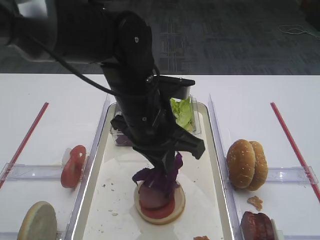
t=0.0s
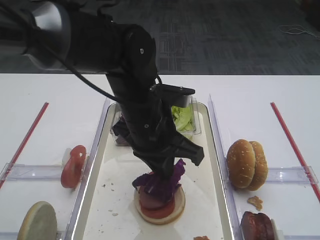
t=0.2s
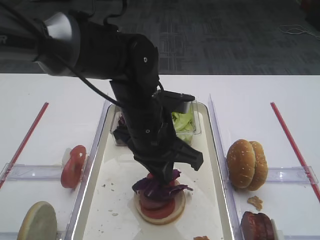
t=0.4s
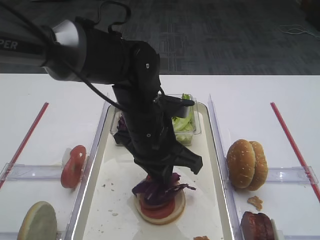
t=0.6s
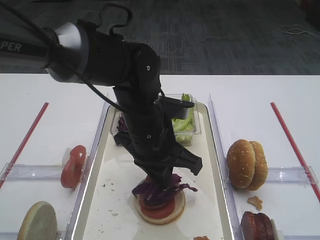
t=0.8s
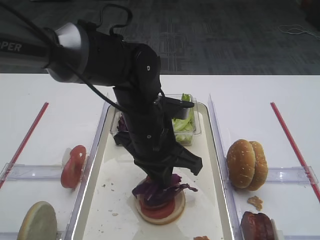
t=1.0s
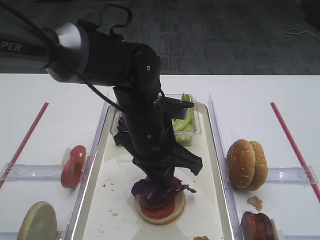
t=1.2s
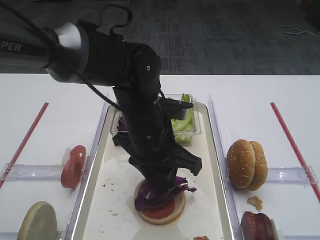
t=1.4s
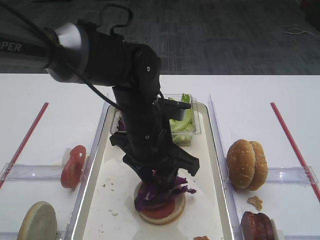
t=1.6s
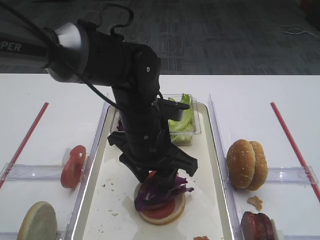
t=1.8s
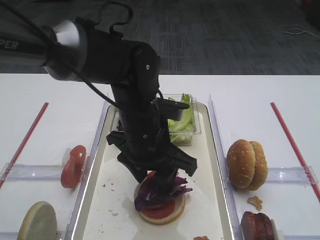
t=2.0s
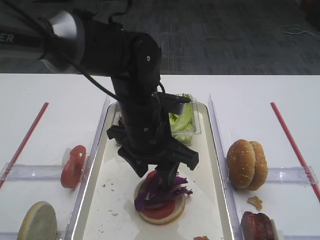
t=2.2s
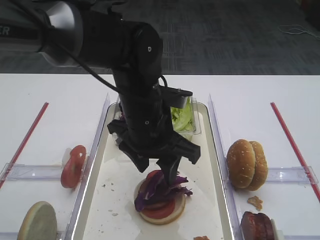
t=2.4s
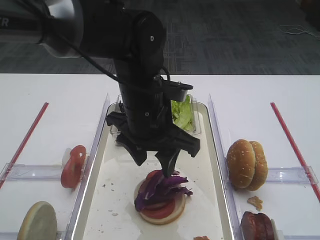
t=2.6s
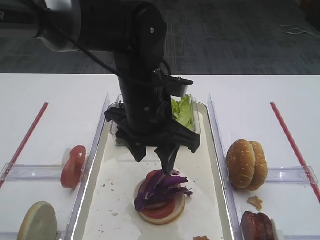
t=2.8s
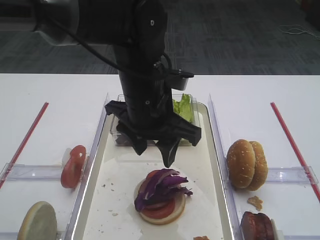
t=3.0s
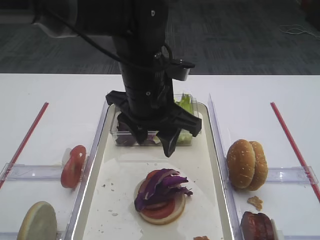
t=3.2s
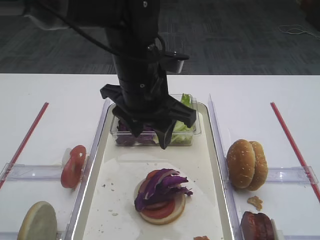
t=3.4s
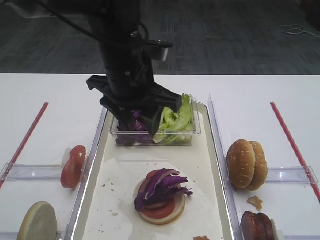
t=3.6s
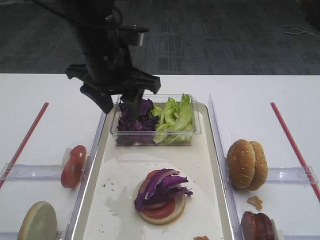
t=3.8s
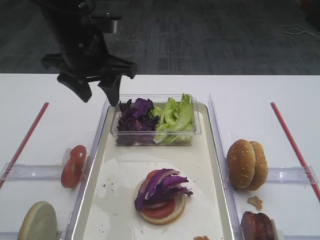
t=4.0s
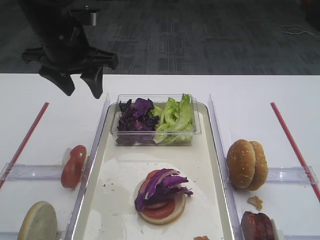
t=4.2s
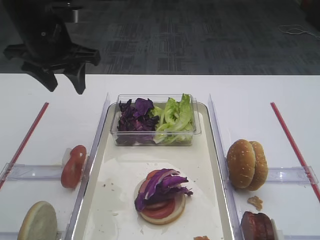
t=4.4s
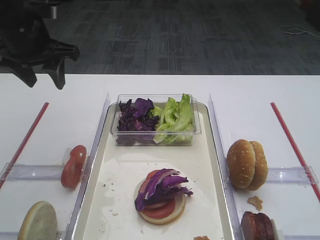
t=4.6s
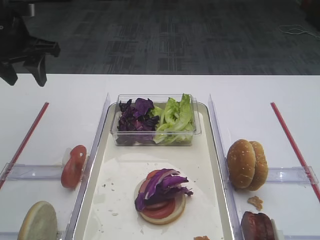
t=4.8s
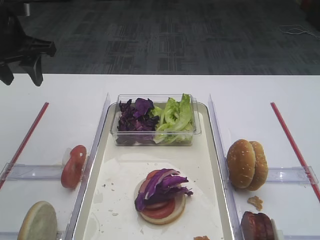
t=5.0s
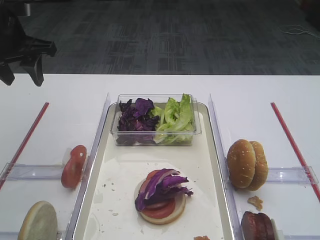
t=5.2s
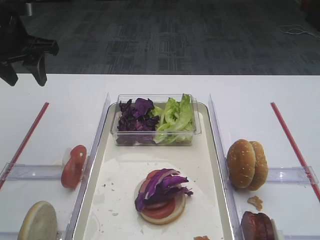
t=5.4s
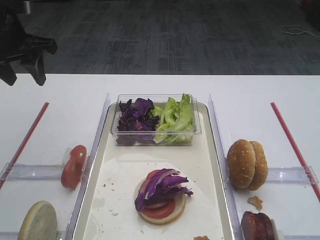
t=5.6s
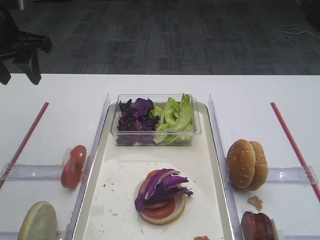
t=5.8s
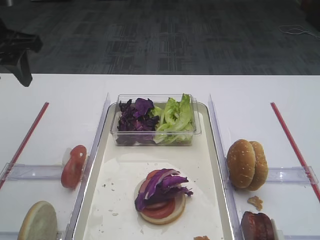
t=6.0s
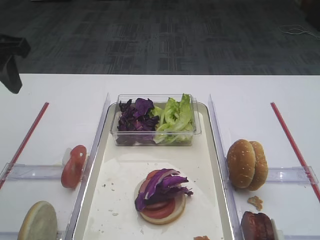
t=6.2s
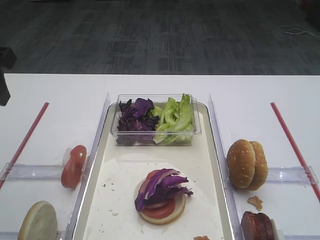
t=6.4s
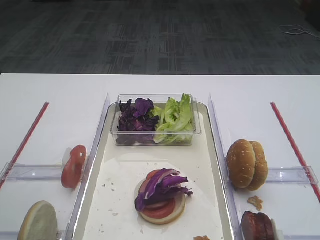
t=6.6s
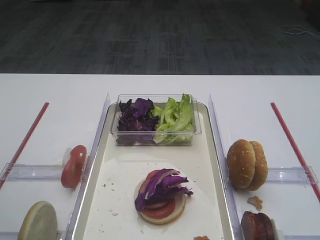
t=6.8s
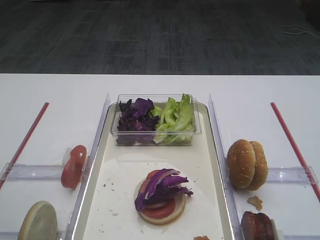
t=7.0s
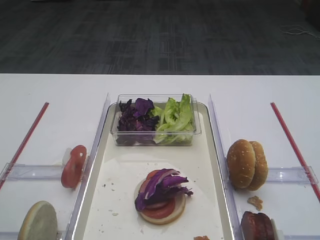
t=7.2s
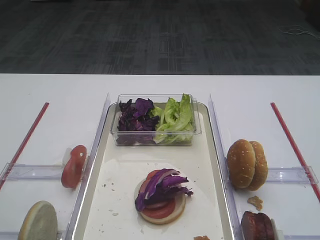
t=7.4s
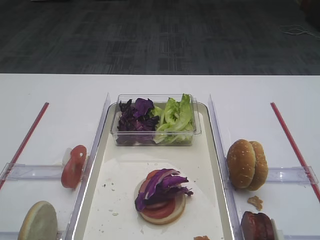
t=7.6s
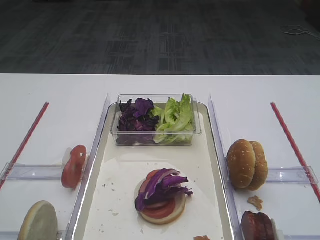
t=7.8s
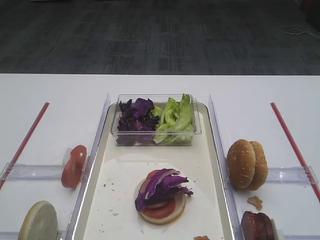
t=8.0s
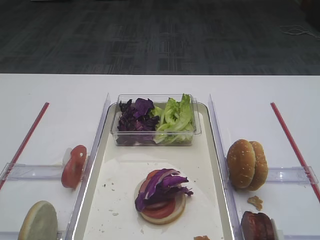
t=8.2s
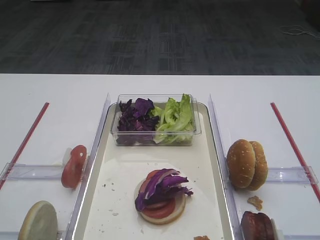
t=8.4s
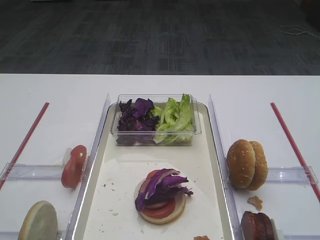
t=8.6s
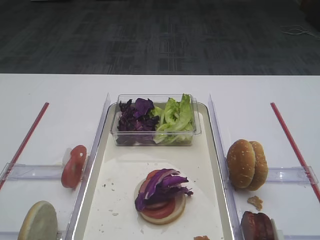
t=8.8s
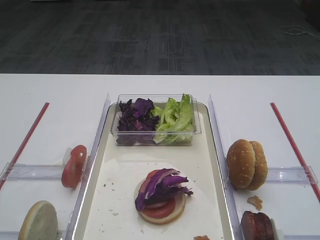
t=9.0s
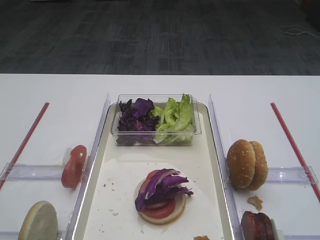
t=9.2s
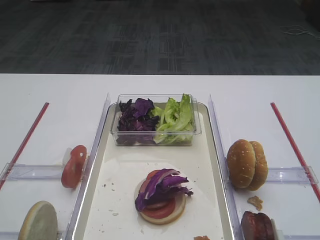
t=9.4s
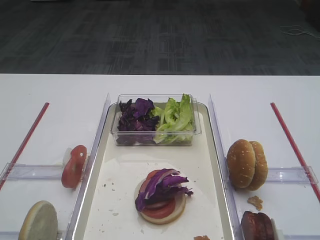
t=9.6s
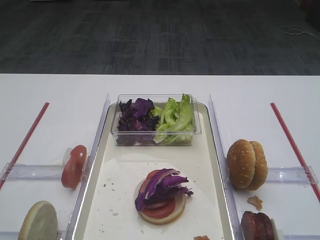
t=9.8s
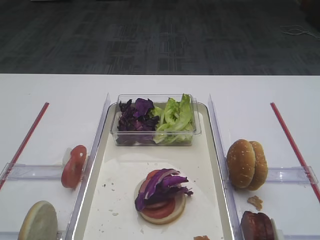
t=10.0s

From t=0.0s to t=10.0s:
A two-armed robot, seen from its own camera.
Step, from t=0.0s to t=2.8s: Place the purple cabbage on the cutlet with the left gripper.
From t=0.0s to t=1.4s: The left gripper opens up.
From t=1.4s to t=2.8s: The left gripper opens up.
From t=2.8s to t=4.2s: The left gripper heads to the left, forward and upward, covering some 15 cm.
From t=4.2s to t=5.8s: The left gripper shifts about 10 cm to the left. Meanwhile the right gripper closes its fingers.
From t=5.8s to t=7.2s: The left gripper travels backward by about 20 cm.

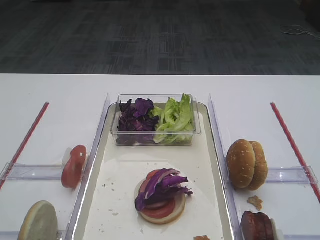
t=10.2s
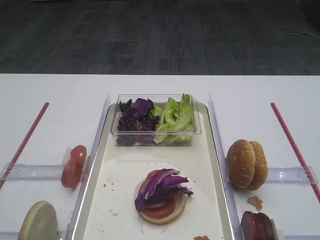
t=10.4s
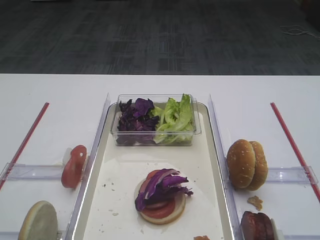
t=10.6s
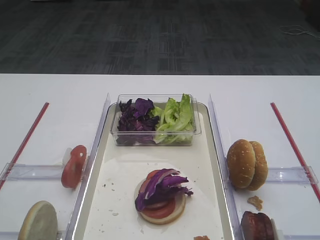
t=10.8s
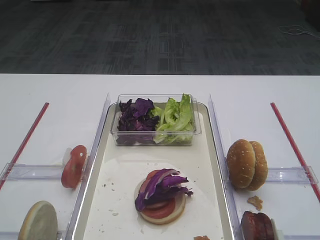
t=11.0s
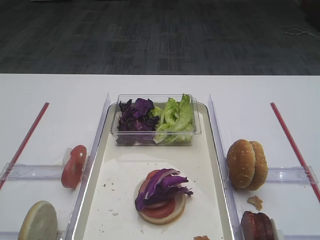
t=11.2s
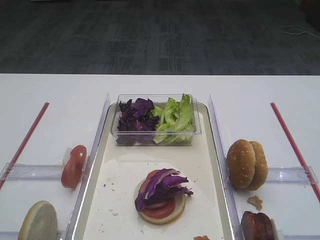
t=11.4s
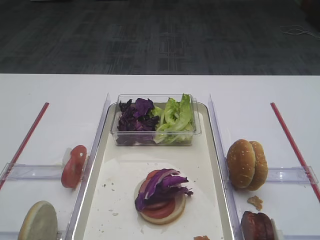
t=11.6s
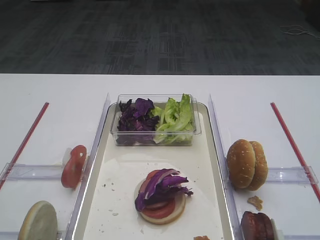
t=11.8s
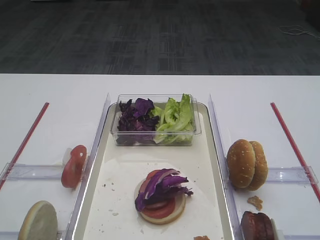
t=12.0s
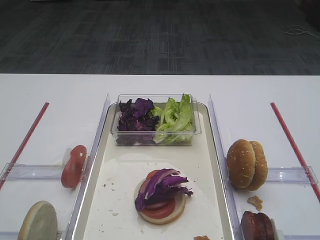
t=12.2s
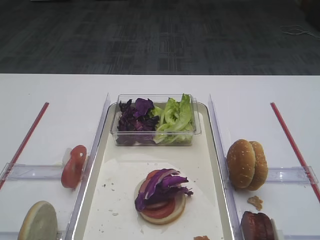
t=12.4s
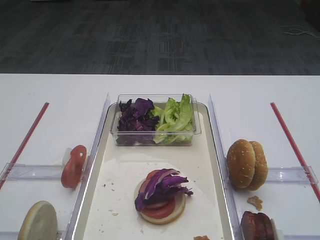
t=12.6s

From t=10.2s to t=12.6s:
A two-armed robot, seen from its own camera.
From t=10.2s to t=11.4s: The two grippers keep their place.

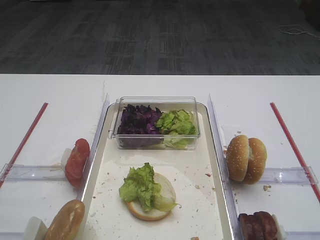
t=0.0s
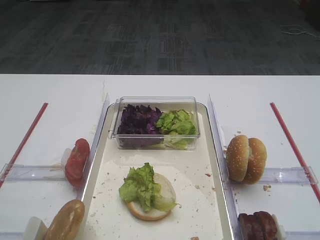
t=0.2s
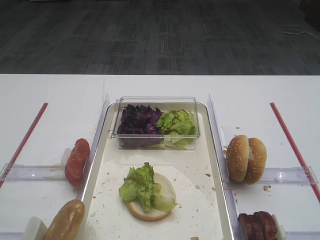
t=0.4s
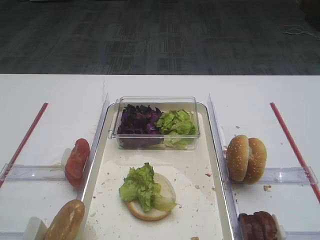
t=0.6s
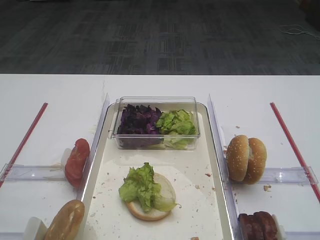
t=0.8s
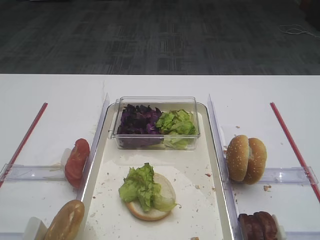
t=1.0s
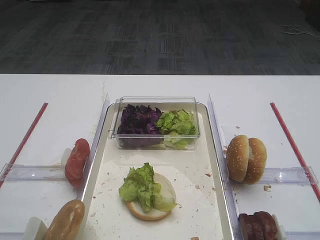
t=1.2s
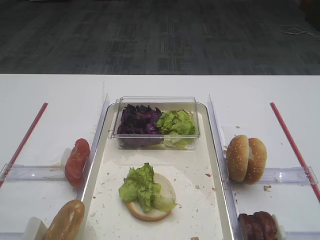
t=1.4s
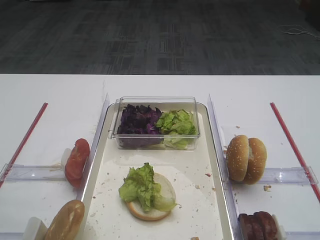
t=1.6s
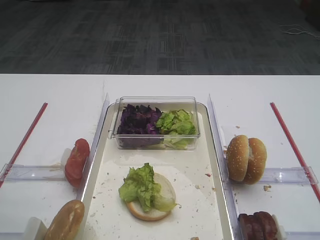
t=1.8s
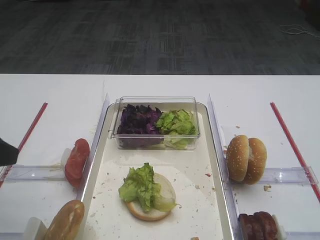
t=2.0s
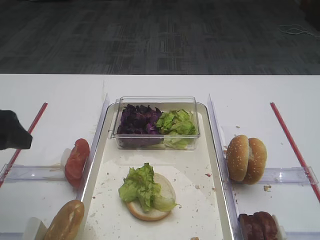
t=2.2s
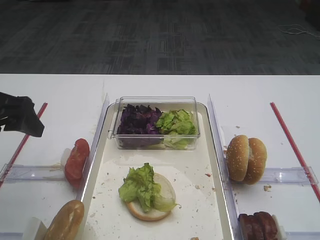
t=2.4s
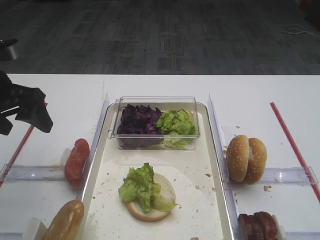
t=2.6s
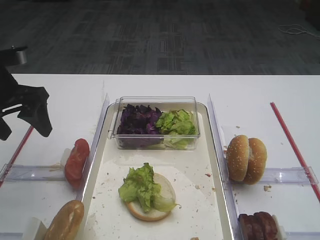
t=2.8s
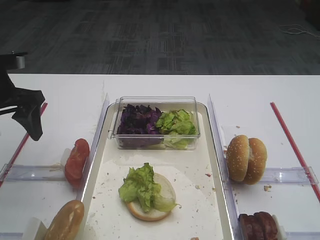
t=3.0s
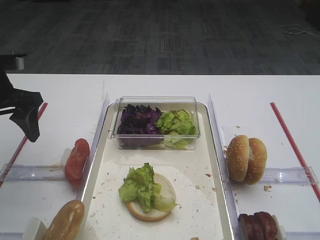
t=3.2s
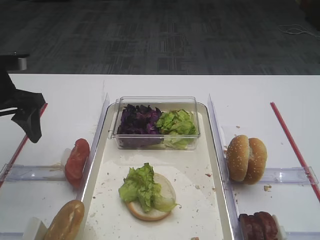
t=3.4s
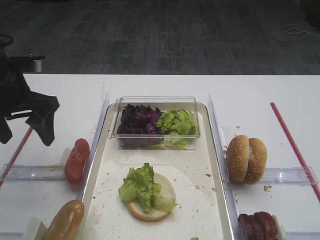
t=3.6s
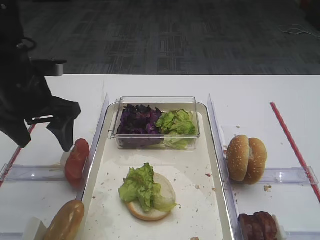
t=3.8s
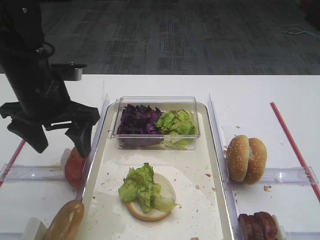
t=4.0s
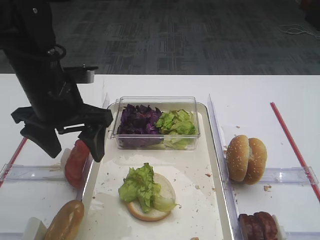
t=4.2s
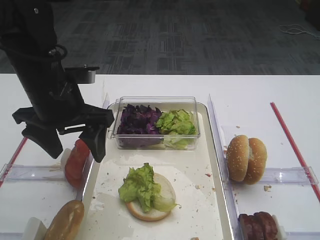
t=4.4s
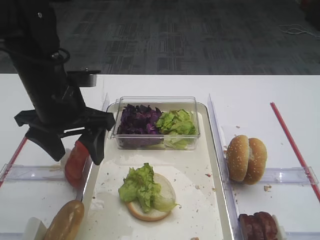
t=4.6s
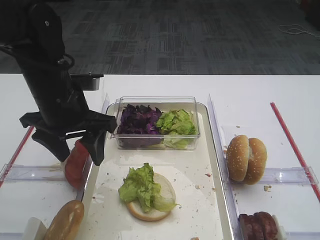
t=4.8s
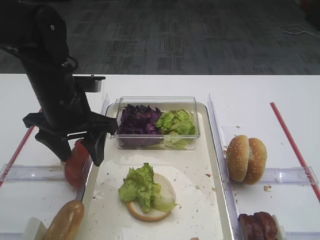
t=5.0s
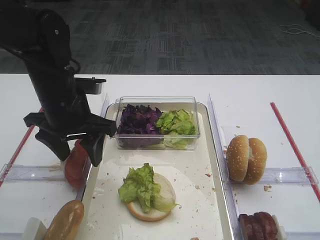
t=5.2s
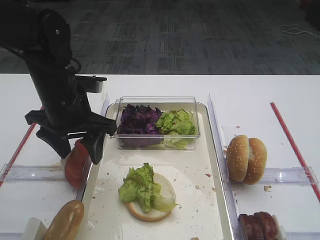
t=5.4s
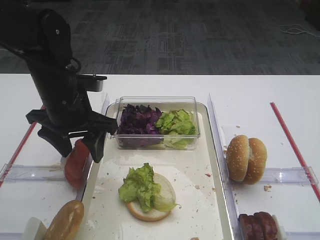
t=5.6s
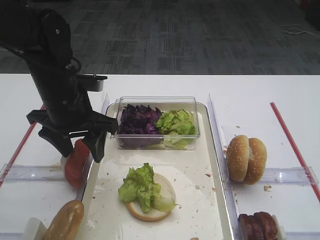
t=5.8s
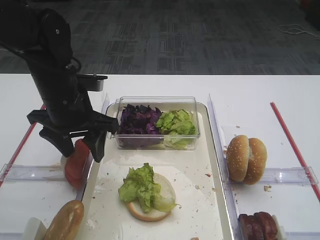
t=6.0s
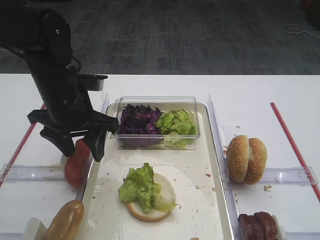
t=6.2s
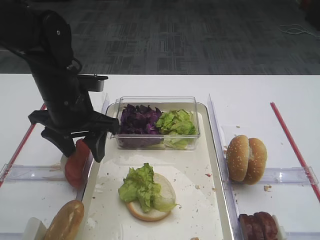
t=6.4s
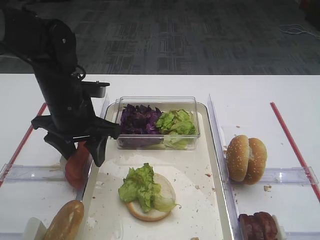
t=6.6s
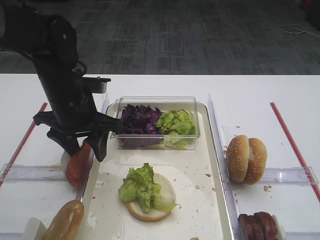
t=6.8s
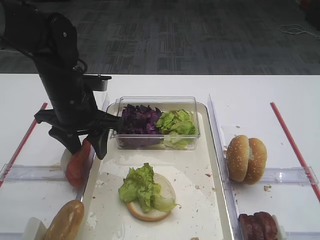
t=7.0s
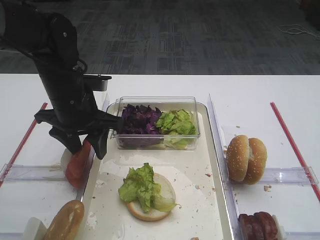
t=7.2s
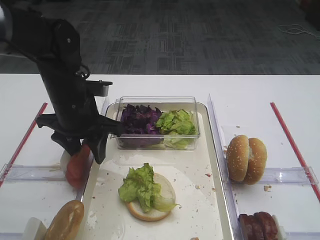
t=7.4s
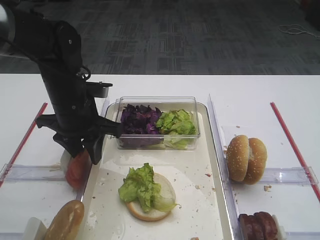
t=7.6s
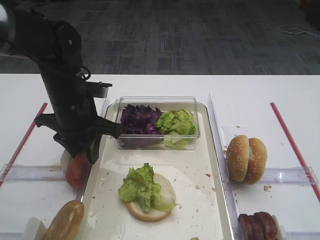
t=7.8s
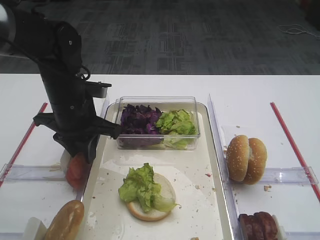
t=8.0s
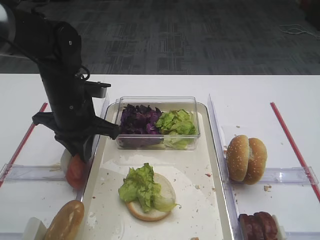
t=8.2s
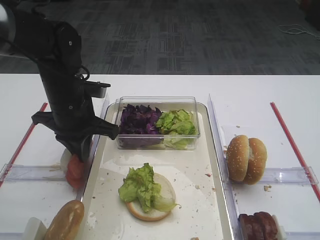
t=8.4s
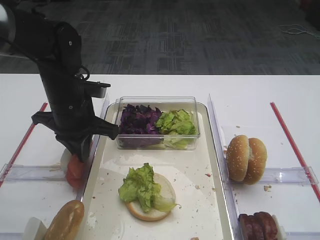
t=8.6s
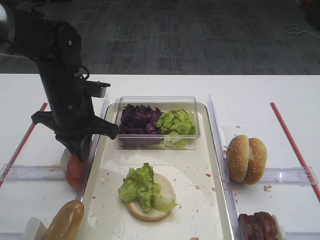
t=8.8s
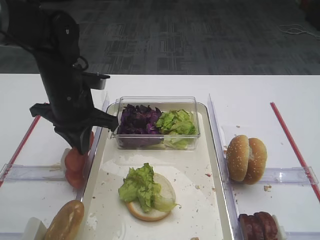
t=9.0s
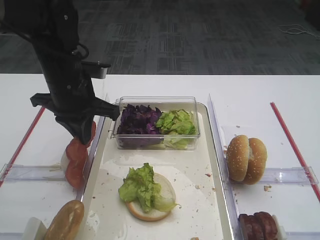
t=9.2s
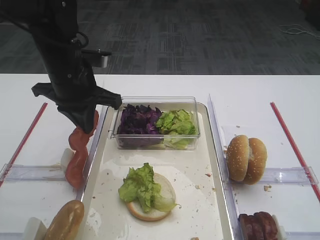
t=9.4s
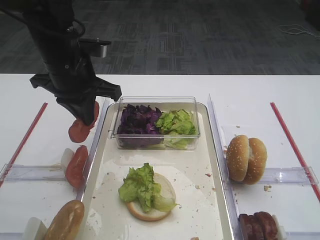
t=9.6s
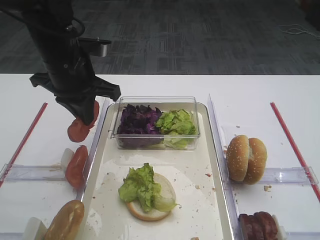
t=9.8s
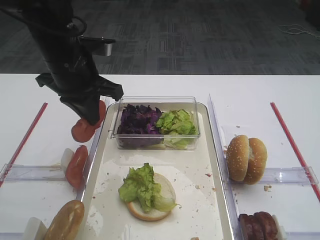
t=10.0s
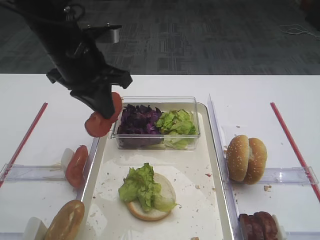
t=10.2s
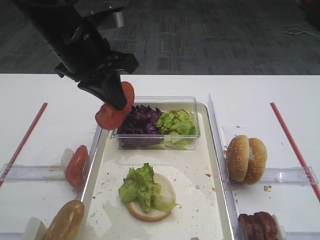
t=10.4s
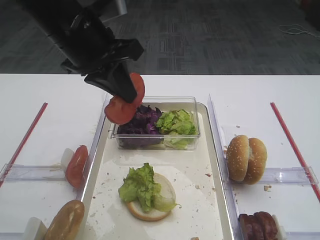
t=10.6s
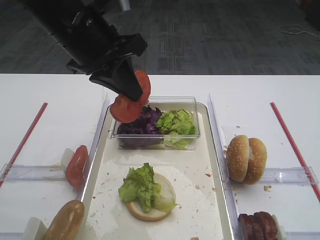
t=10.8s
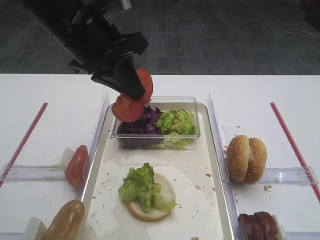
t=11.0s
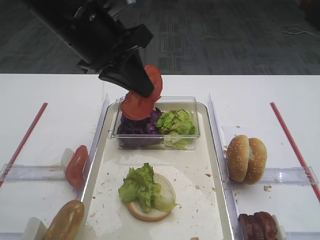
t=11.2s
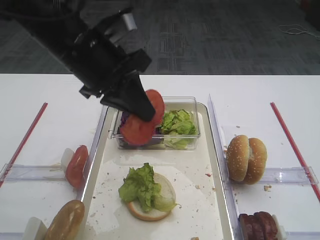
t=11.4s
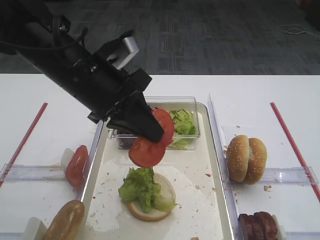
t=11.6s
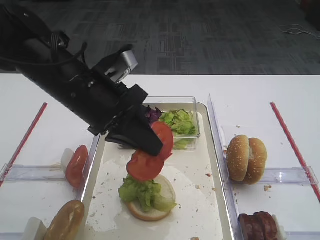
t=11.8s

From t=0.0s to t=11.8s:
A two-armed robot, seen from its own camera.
Step, from t=0.0s to t=9.2s: Pick up the tomato slice with the left gripper.
From t=1.4s to t=3.0s: The left gripper travels forward by roughly 30 cm.
From t=3.0s to t=4.4s: The left gripper moves to the right, approximately 10 cm.
From t=4.4s to t=6.0s: There are only small adjustments of the grippers.
From t=6.0s to t=7.4s: The grippers stay close to where they were, moving slightly.
From t=7.4s to t=8.8s: The left gripper closes up.
From t=8.8s to t=10.4s: The left gripper goes roughly 10 cm upward.
From t=10.4s to t=11.8s: The left gripper goes roughly 5 cm downward and backward.
